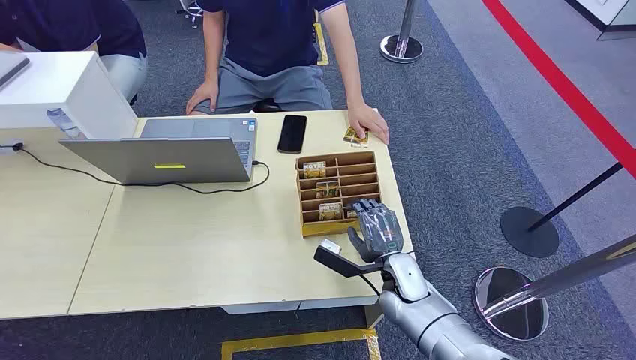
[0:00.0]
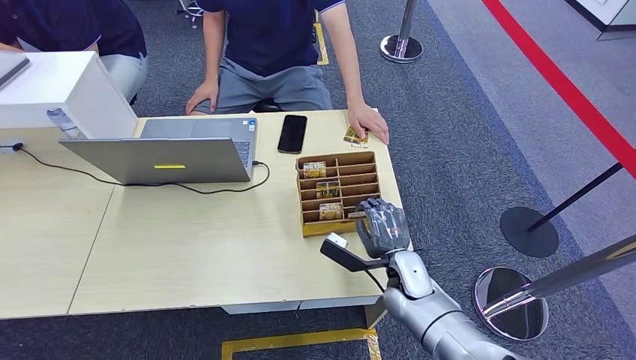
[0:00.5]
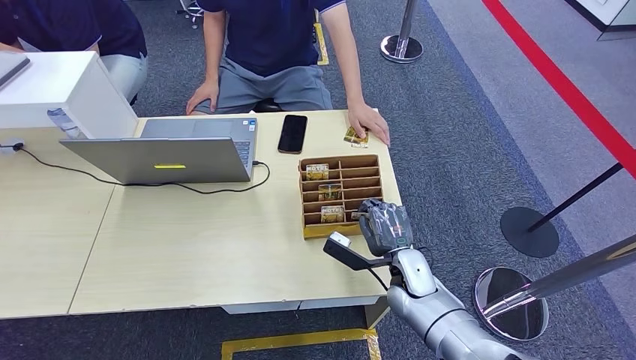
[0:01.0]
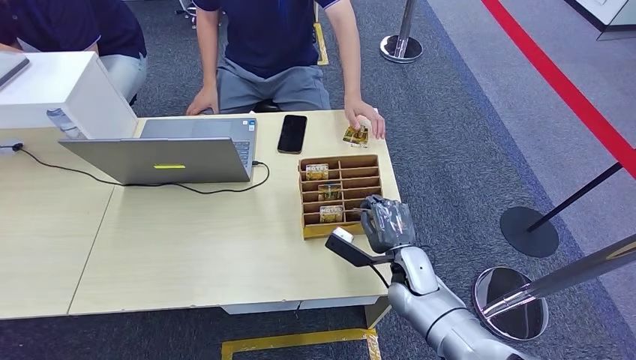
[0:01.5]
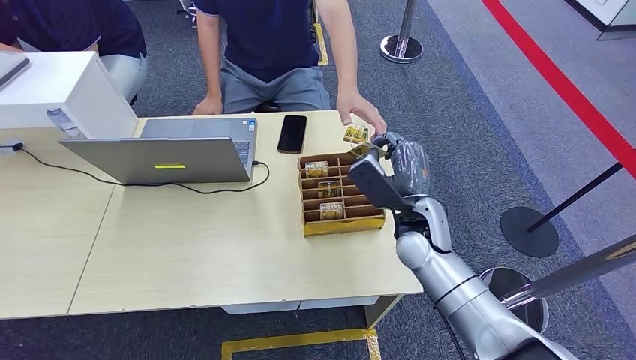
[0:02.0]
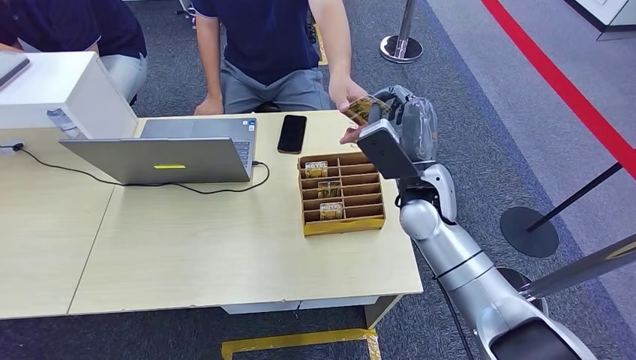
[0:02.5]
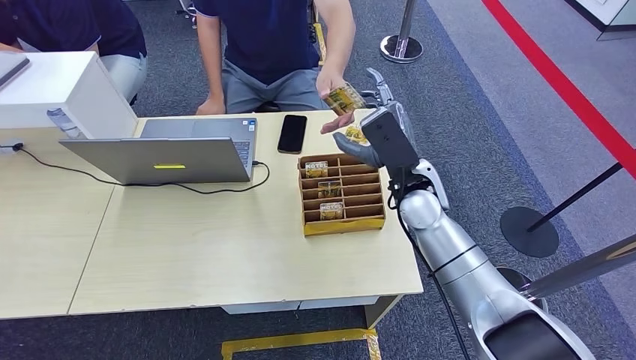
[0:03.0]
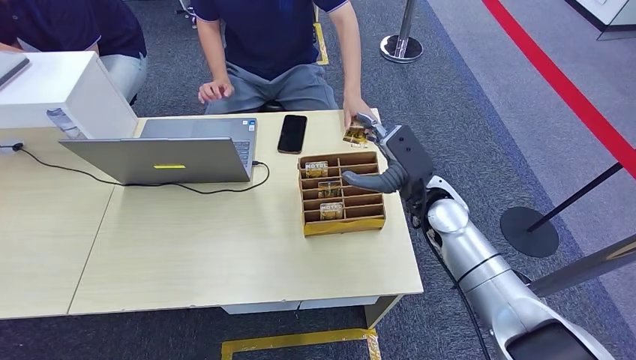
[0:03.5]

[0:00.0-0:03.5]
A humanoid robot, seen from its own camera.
Step, 0:00.0 to 0:01.5: Pick up the key card from the card box.
Step, 0:02.5 to 0:03.5: Hand the key card to the target.
0:02.0 to 0:03.5: The right hand shifts by some 5 cm.

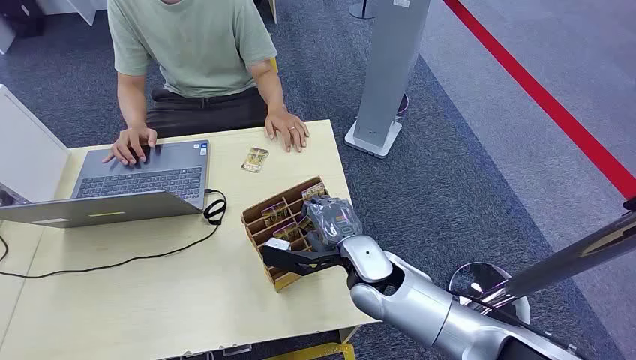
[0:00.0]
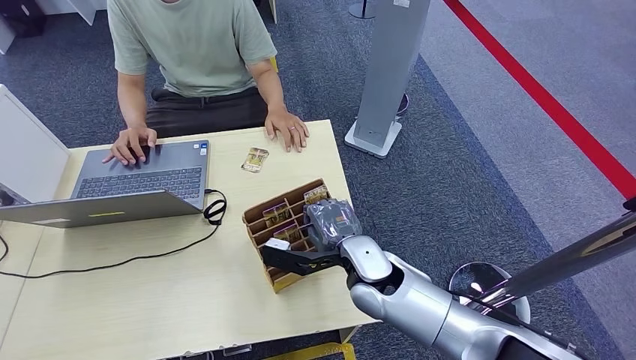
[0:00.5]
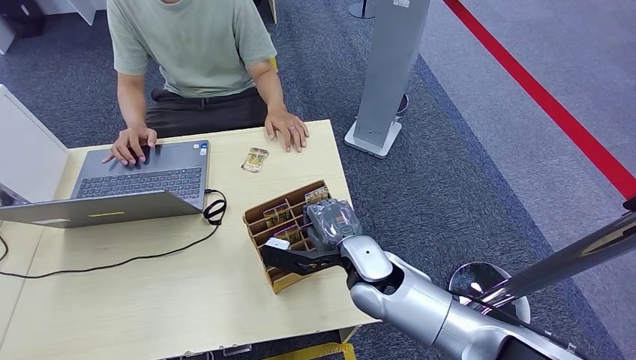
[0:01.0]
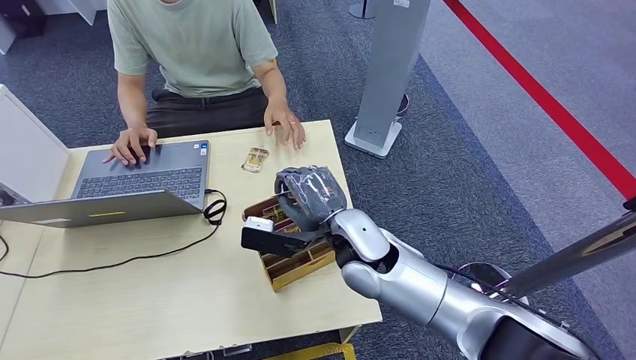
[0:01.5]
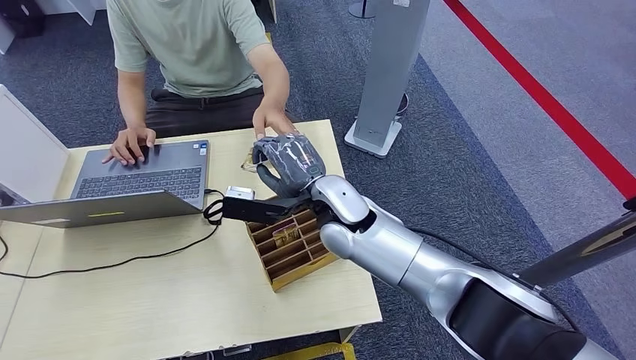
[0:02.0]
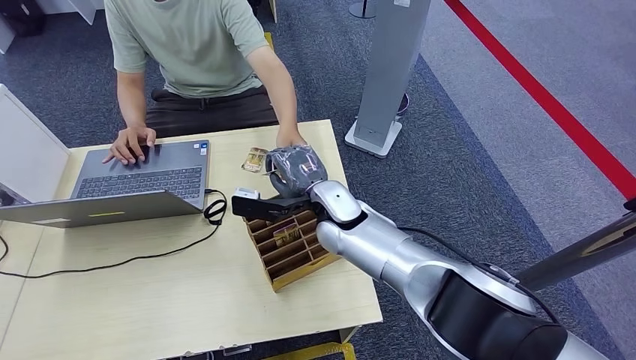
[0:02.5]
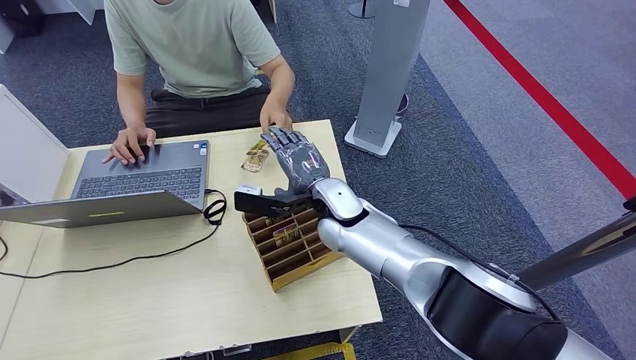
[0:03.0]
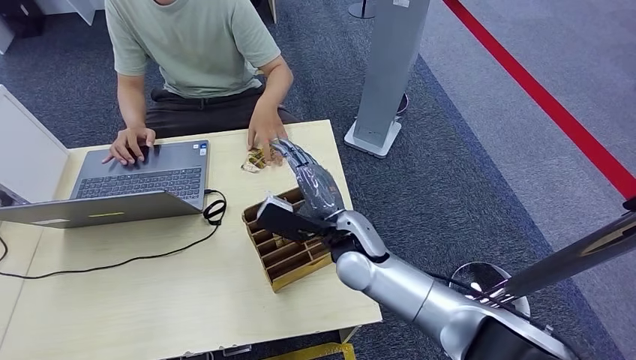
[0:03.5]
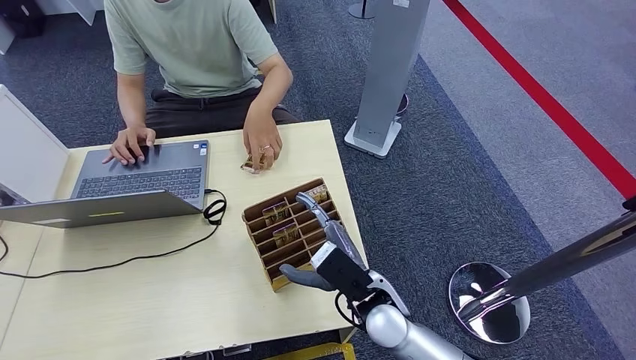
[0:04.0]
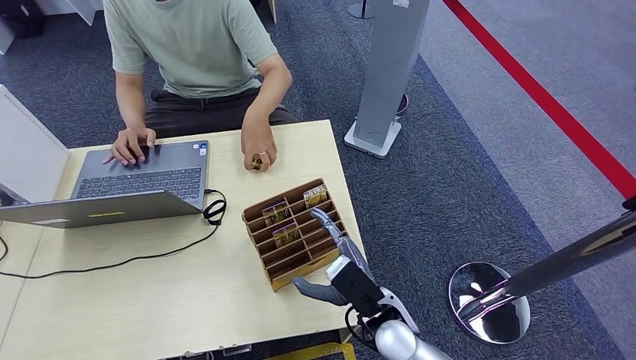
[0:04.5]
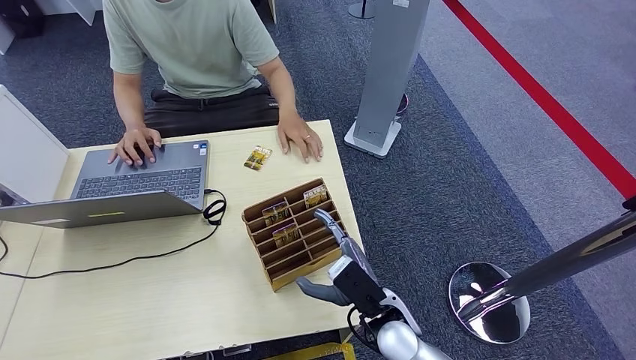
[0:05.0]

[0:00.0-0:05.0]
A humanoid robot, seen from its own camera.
Step, 0:02.0 to 0:05.0: Hand the key card to the target.
0:02.5 to 0:05.0: The right hand is displaced backward, downward and to the right by about 20 cm.
